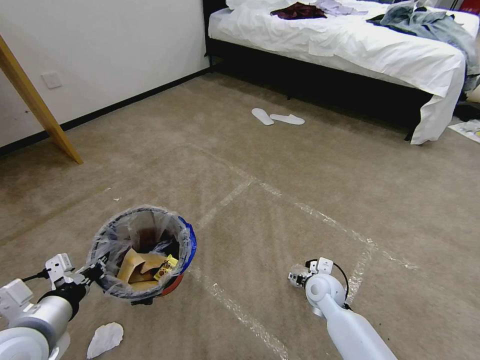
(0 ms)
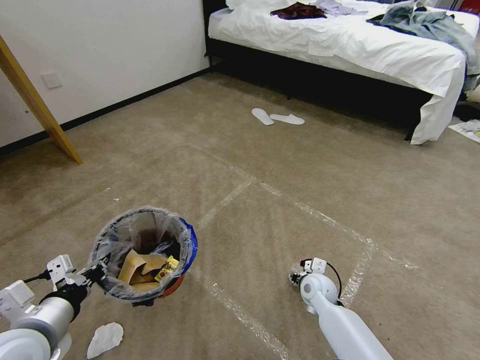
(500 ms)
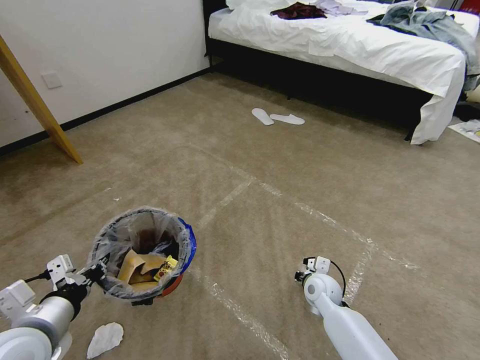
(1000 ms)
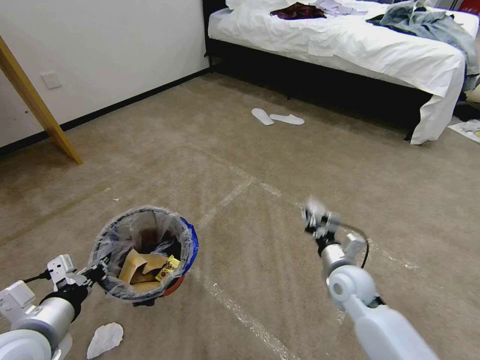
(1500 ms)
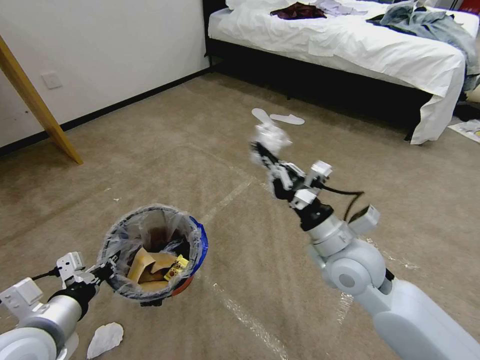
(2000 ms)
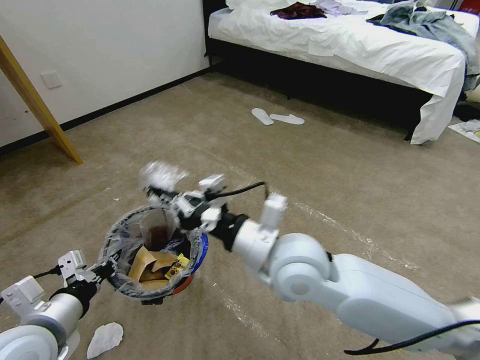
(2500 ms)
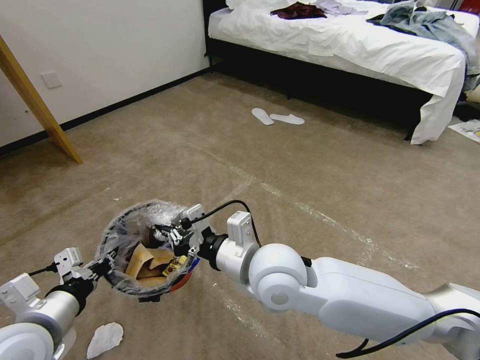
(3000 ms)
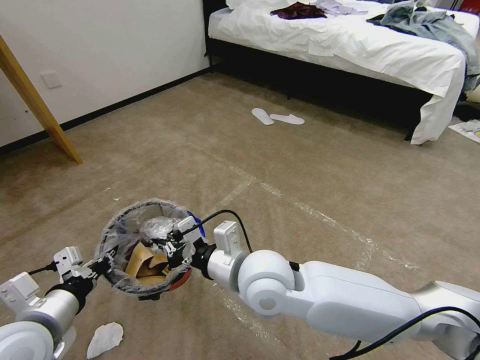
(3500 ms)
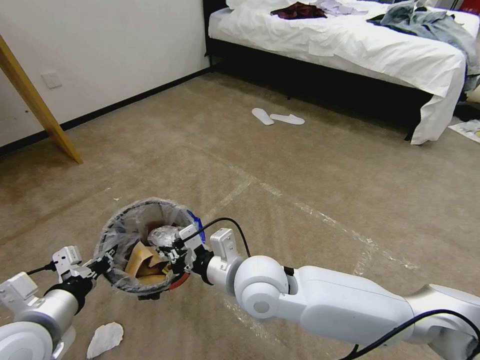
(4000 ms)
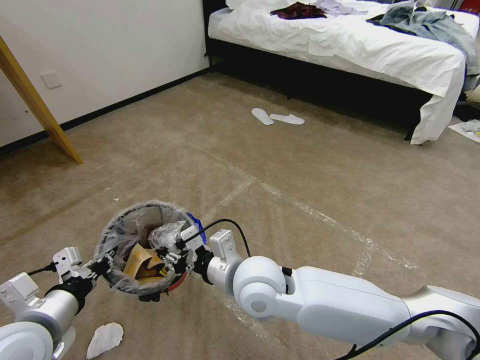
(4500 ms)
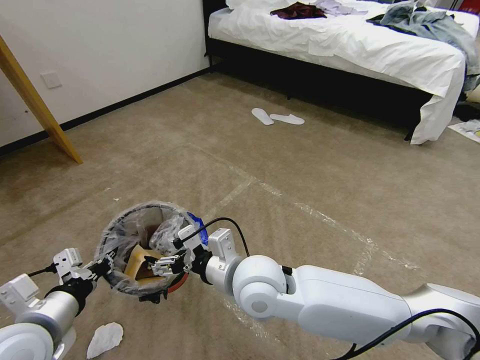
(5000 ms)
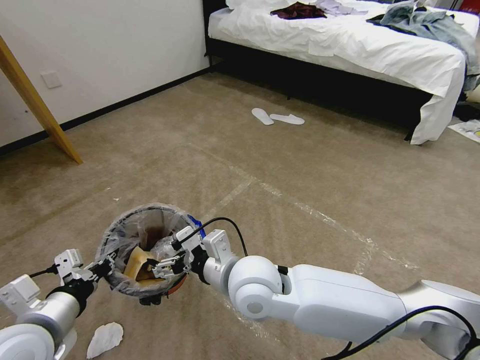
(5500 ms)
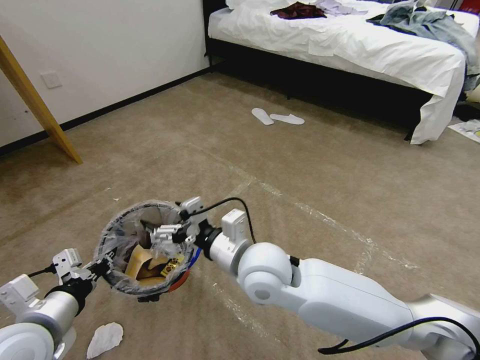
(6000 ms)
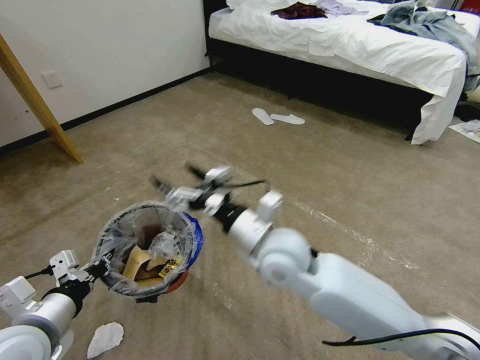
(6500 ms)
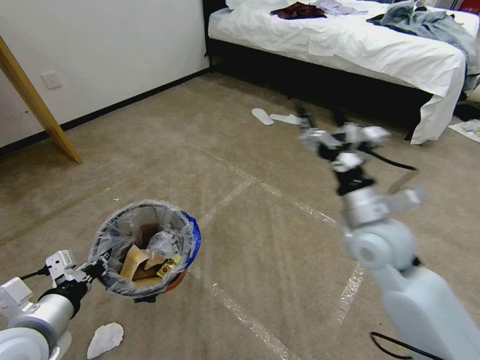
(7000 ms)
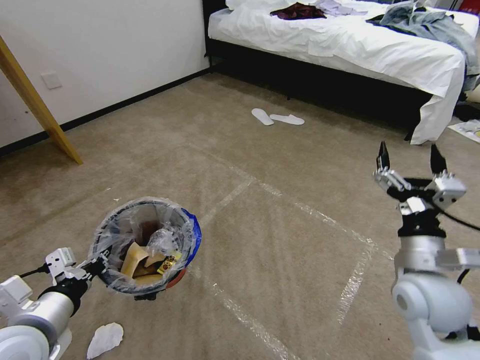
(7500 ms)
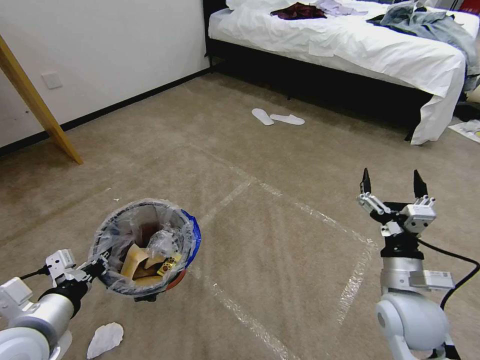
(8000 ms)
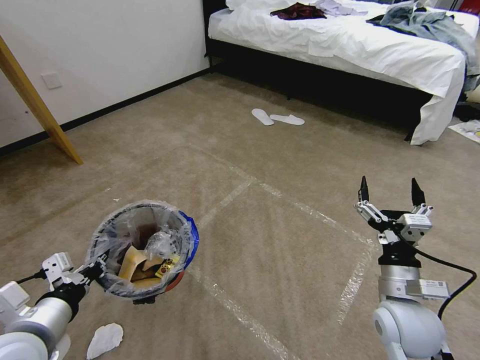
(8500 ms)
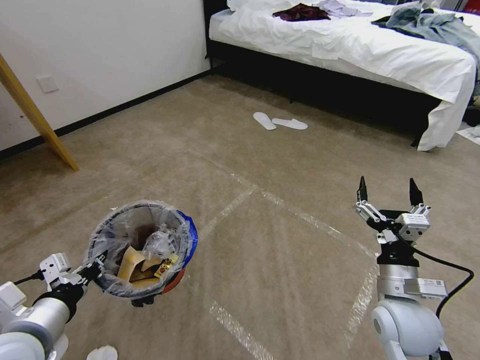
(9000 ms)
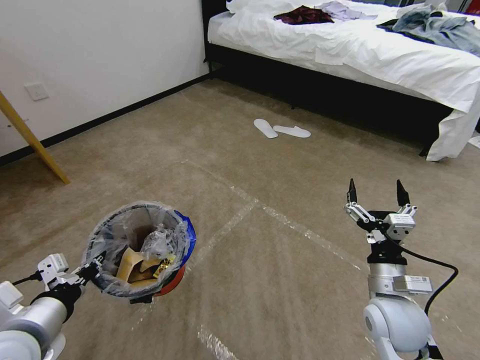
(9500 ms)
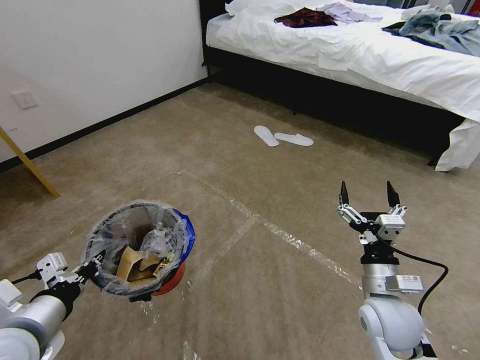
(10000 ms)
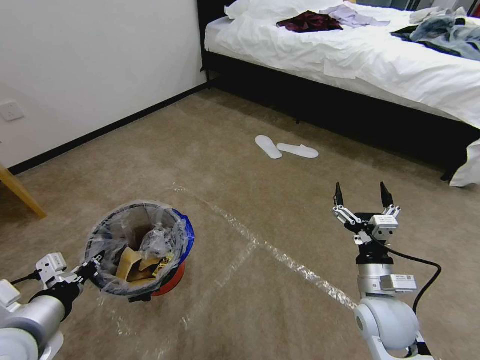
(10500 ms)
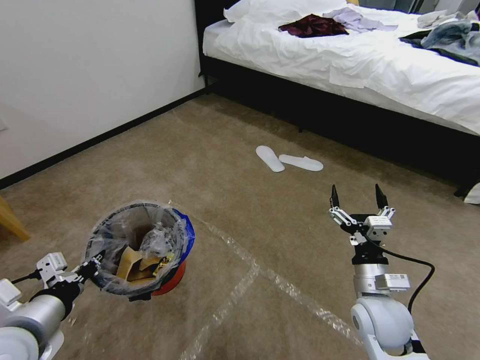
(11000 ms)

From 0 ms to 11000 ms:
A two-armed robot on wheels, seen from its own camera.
Task of the whole recording: Pick up the trash bin and place the garbage on the floor into it.
From 0 ms to 2000 ms: The right gripper goes approximately 20 cm upward, and closes its fingers.
From 2000 ms to 3500 ms: The right gripper travels to the left by some 20 cm.
From 3500 ms to 5500 ms: The right gripper opens.
From 5500 ms to 7500 ms: The right gripper is displaced to the right by about 30 cm.
From 7500 ms to 9000 ms: The right gripper goes some 5 cm downward.

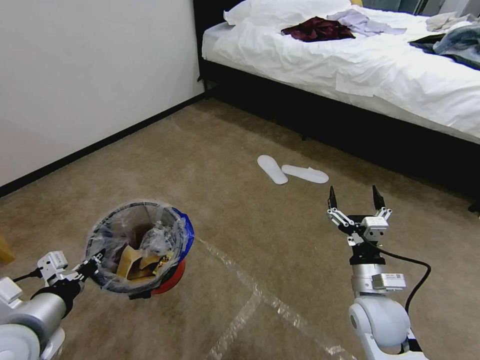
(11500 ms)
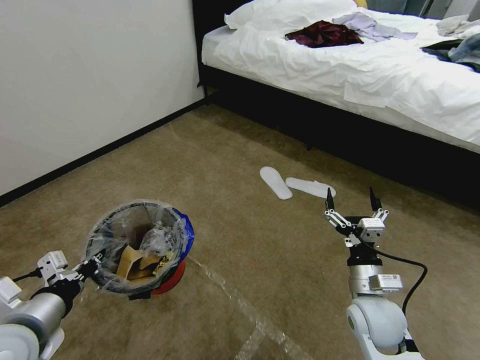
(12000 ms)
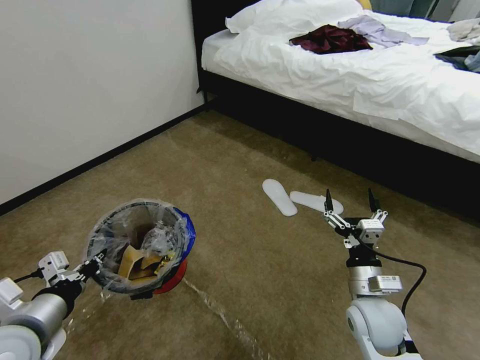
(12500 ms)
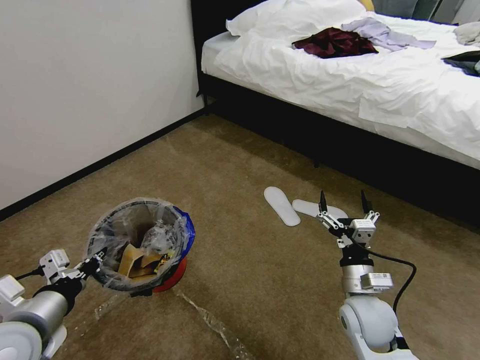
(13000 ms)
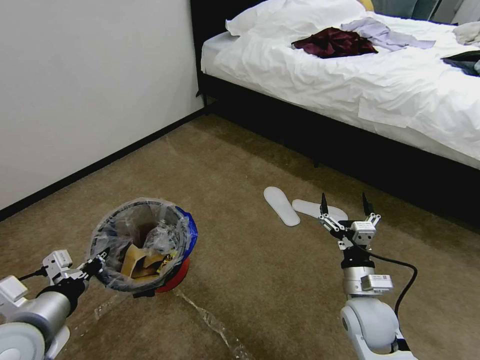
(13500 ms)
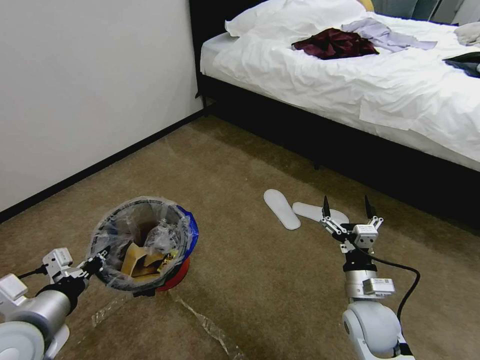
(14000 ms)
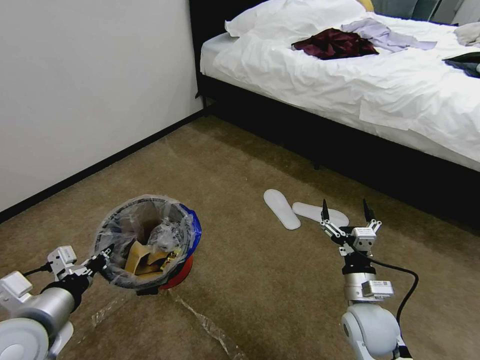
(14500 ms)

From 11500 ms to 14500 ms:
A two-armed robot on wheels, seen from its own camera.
Task of the whole recording: Pick up the trash bin and place the garbage on the floor into it.
From 13000 ms to 14500 ms: The grippers make only small movements.
